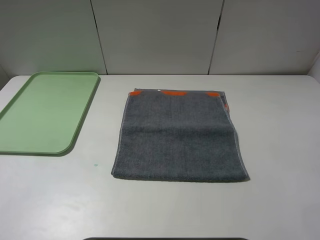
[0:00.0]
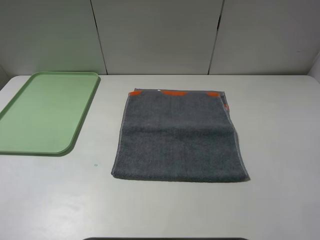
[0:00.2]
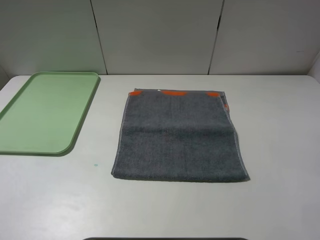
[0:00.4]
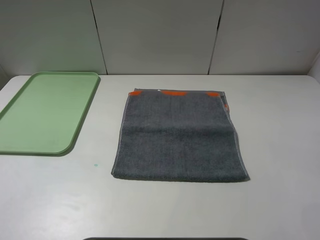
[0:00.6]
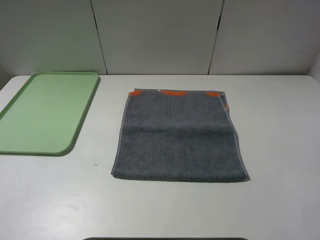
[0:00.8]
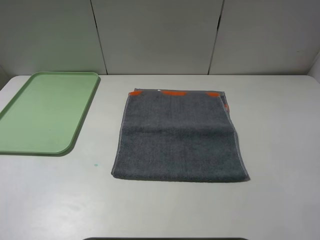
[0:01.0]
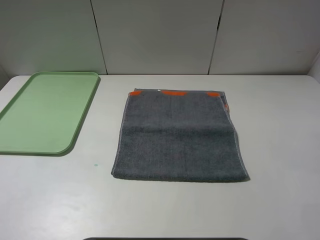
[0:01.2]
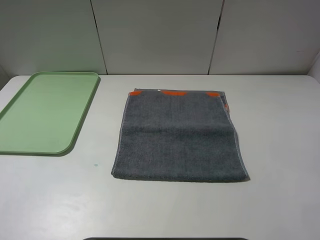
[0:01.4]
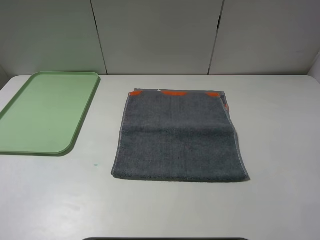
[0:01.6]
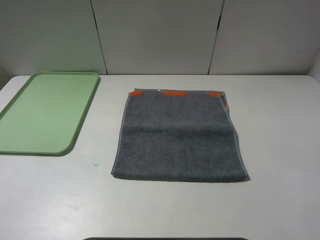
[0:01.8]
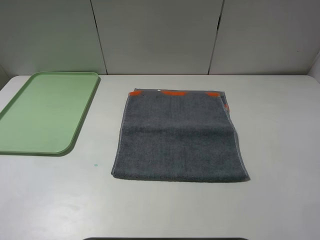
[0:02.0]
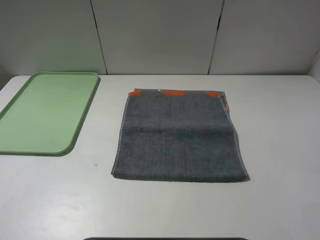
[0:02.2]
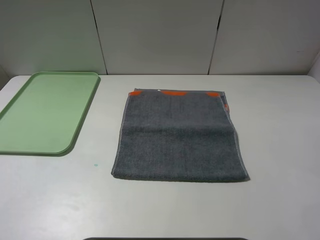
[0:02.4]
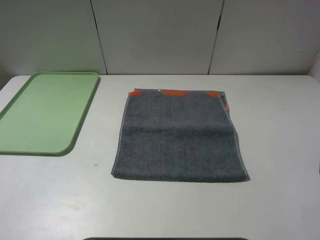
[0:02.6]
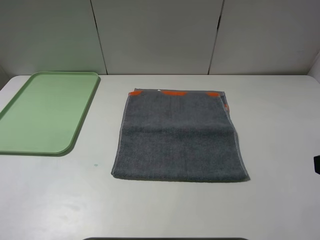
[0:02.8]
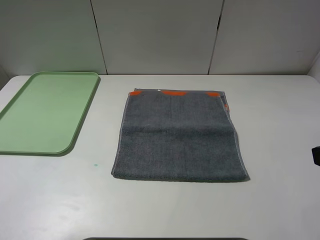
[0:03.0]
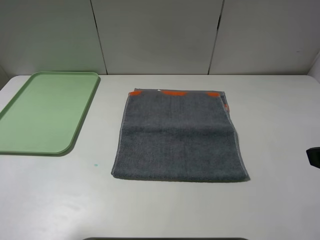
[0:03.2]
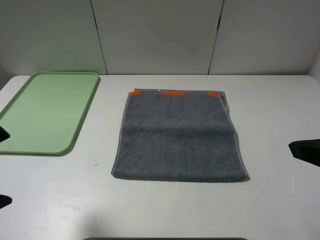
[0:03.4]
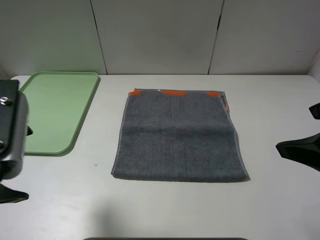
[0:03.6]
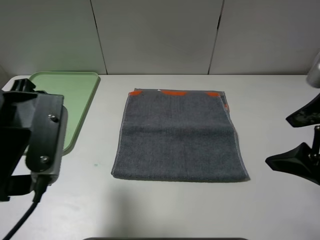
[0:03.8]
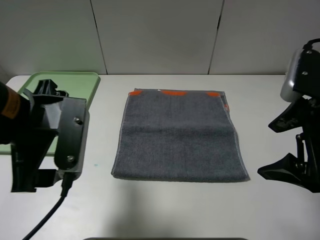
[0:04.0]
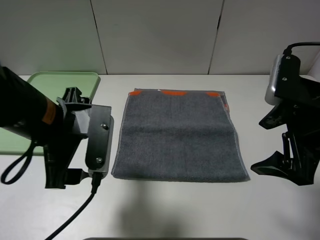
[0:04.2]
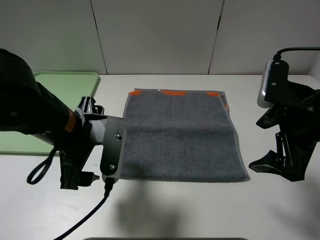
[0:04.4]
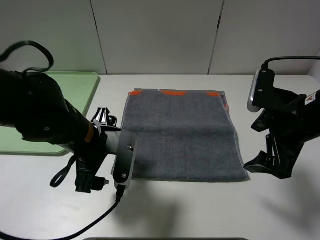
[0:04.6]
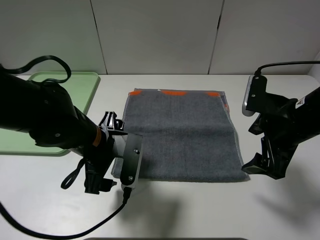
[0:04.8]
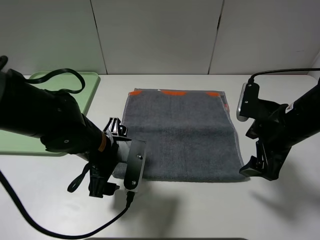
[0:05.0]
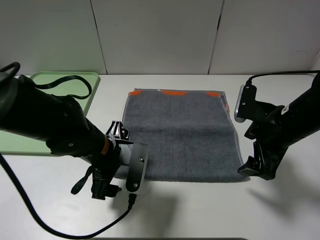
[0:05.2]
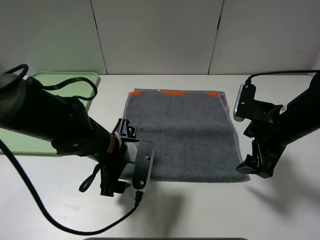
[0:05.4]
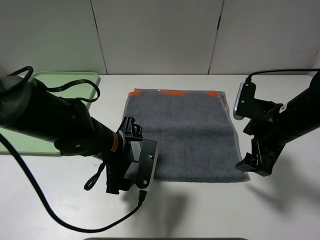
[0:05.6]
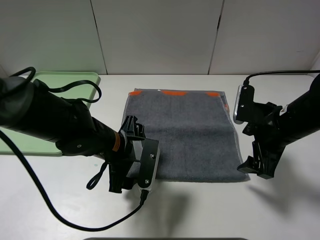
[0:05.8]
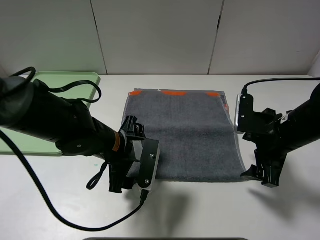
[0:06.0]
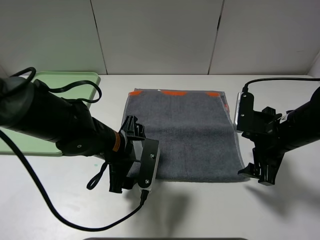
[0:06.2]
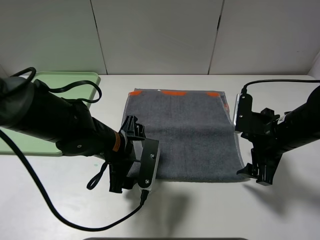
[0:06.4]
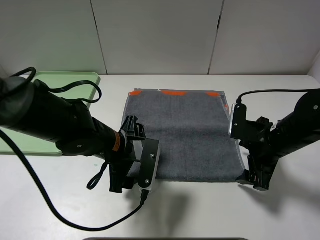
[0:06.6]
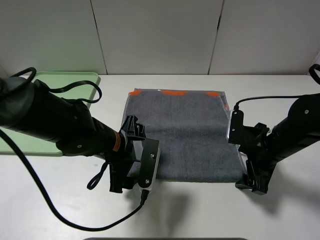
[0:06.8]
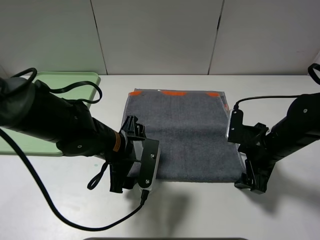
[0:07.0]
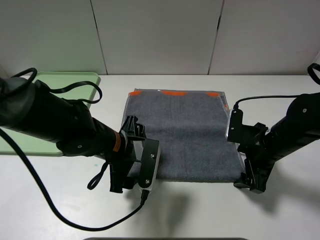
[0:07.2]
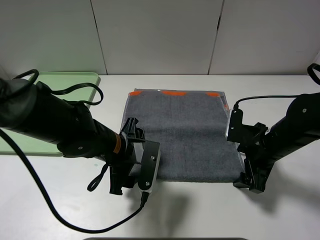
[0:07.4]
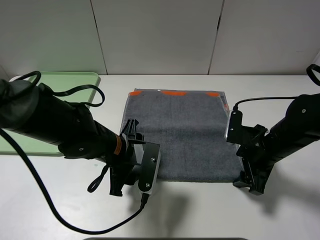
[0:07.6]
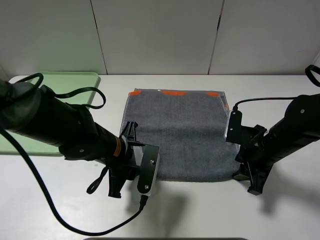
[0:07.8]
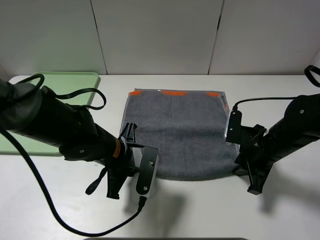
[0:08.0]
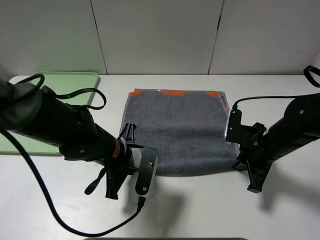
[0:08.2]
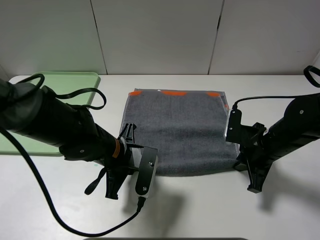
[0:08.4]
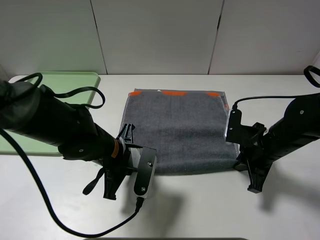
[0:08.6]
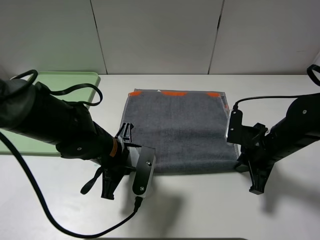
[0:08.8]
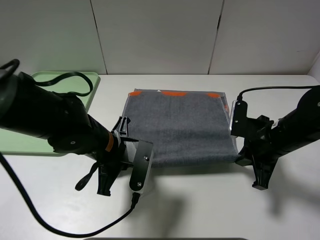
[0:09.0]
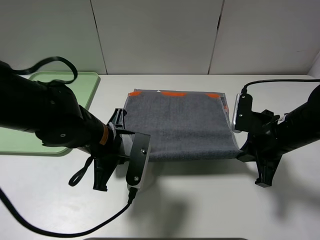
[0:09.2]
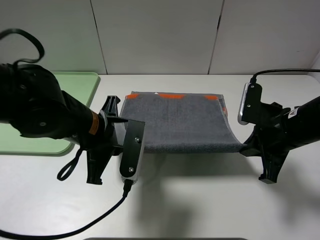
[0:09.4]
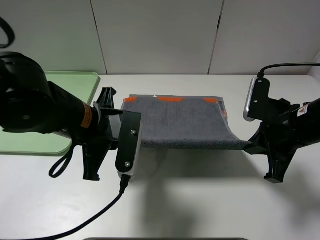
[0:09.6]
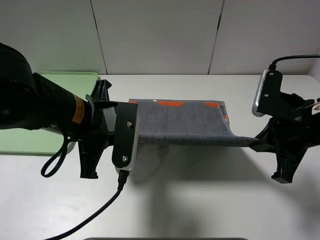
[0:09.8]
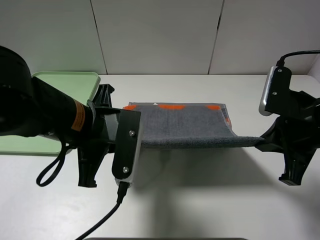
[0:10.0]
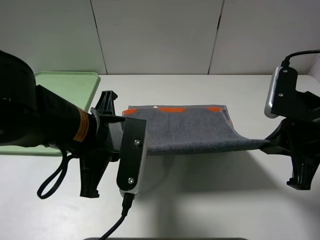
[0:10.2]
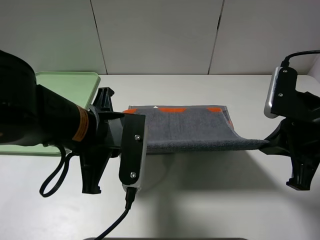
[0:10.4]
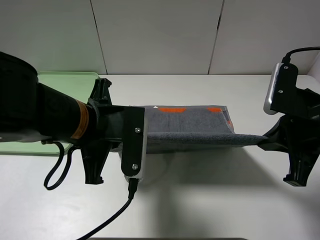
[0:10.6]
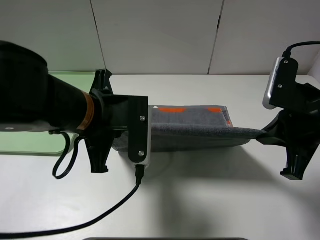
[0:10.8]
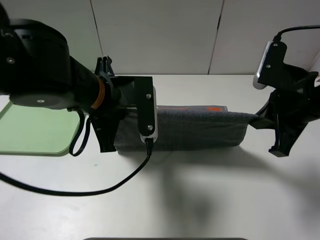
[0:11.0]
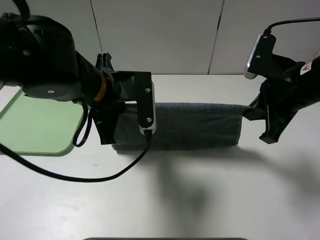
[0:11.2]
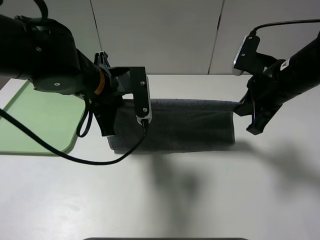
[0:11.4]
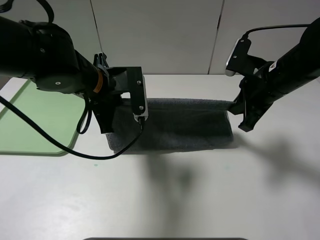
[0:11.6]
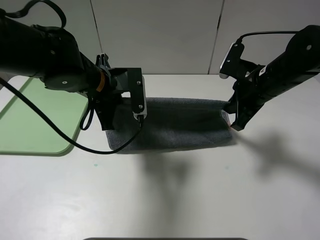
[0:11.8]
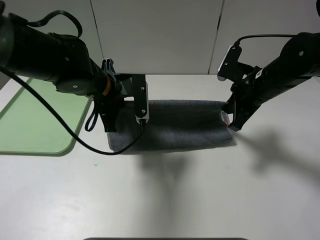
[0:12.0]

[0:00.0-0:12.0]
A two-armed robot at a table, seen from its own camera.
0:00.0 to 0:01.6: Both grippers stay put.
0:03.0 to 0:04.4: The left gripper is displaced to the right, downward and forward by about 25 cm; the right gripper is displaced forward and downward by some 15 cm.
0:04.4 to 0:06.0: Both grippers travel together downward, approximately 10 cm.
0:06.0 to 0:07.6: The right gripper goes about 5 cm downward.
0:07.6 to 0:09.0: The left gripper closes up. Meanwhile the right gripper closes.
0:09.0 to 0:10.4: The left gripper goes some 10 cm upward. Meanwhile the right gripper heads upward and backward, covering roughly 10 cm.
0:10.4 to 0:12.0: The two grippers go roughly 15 cm forward.

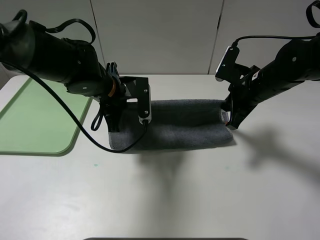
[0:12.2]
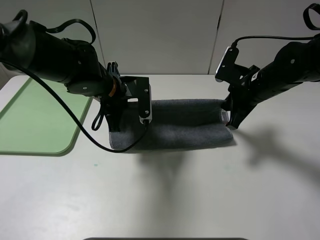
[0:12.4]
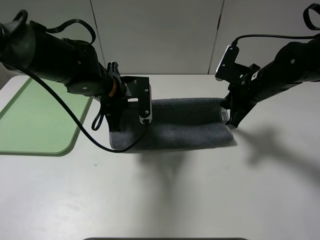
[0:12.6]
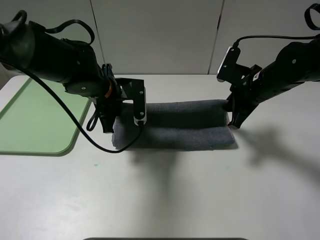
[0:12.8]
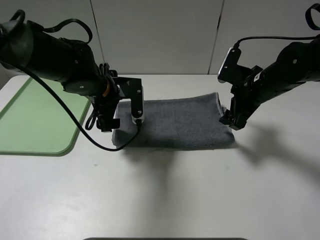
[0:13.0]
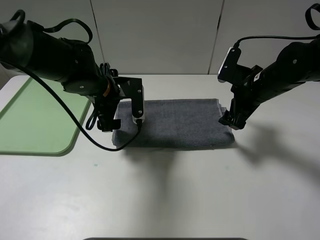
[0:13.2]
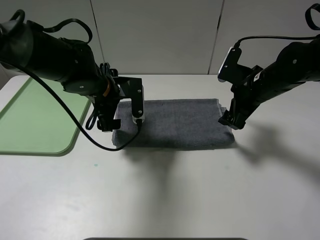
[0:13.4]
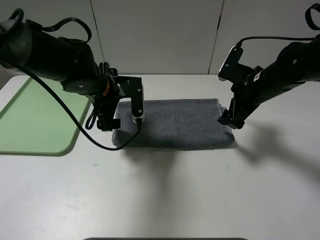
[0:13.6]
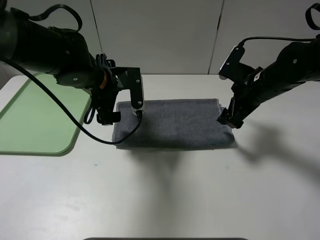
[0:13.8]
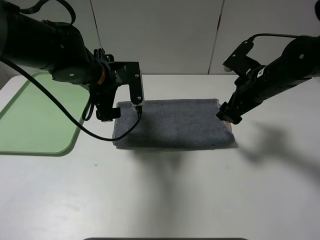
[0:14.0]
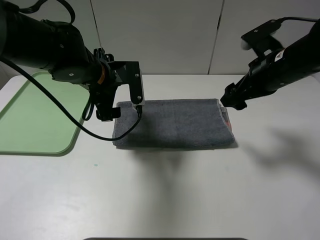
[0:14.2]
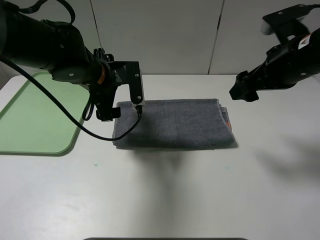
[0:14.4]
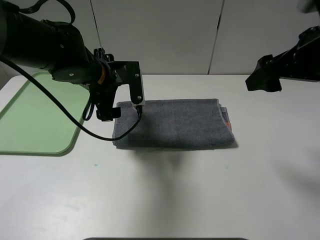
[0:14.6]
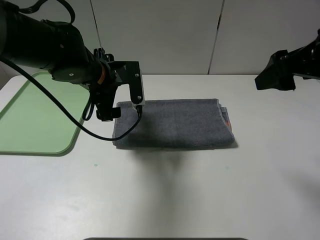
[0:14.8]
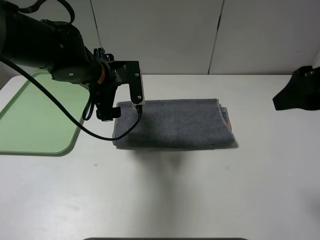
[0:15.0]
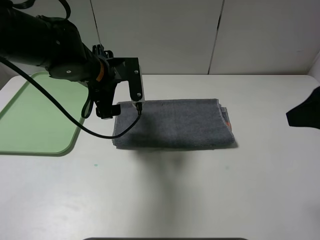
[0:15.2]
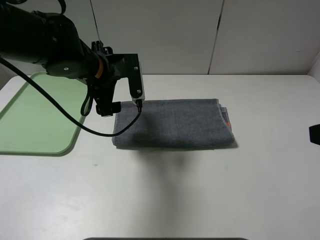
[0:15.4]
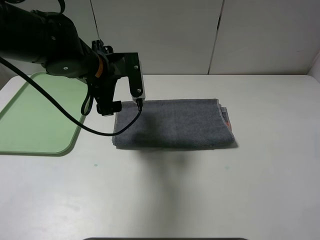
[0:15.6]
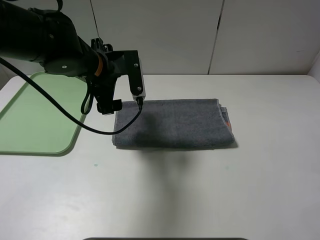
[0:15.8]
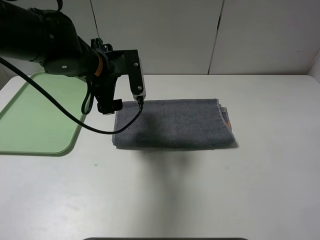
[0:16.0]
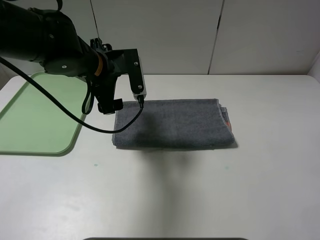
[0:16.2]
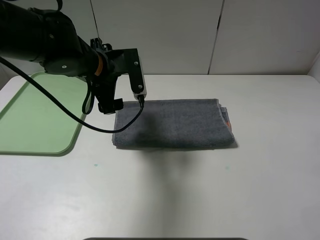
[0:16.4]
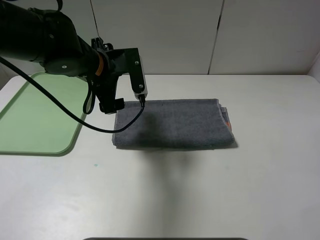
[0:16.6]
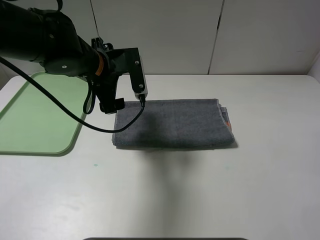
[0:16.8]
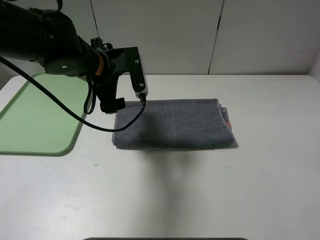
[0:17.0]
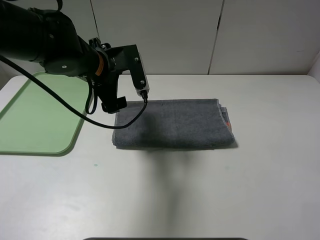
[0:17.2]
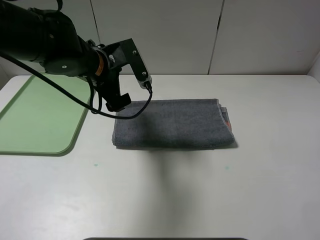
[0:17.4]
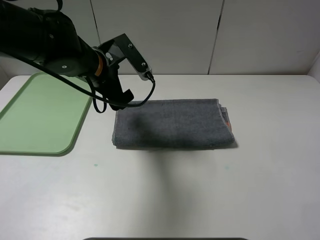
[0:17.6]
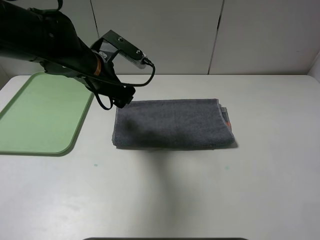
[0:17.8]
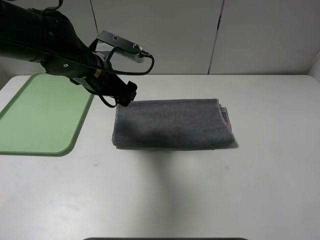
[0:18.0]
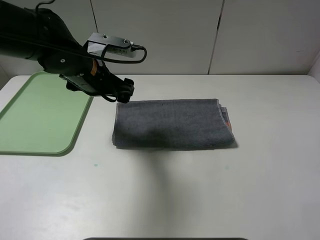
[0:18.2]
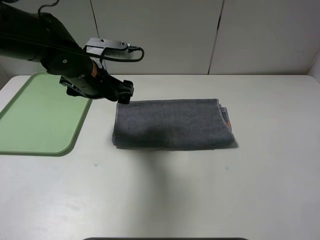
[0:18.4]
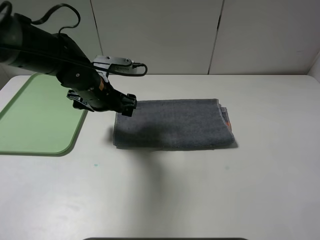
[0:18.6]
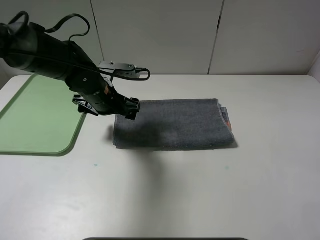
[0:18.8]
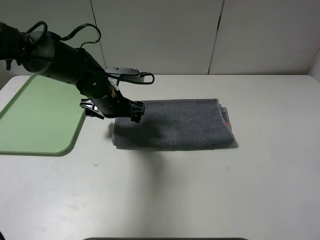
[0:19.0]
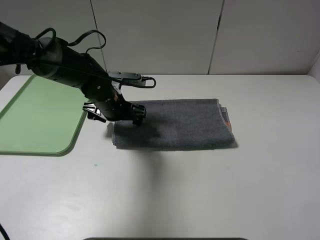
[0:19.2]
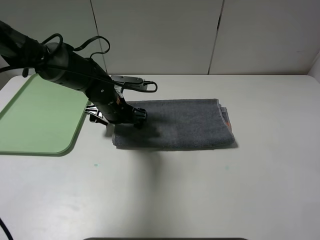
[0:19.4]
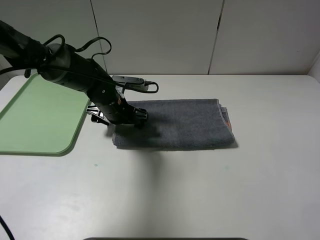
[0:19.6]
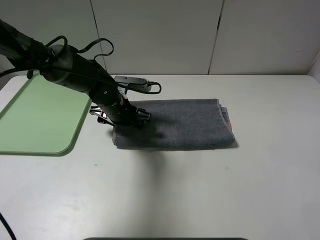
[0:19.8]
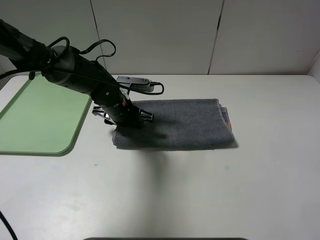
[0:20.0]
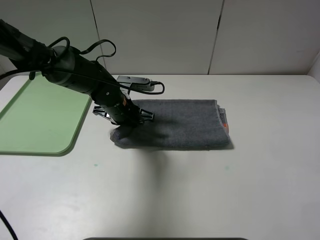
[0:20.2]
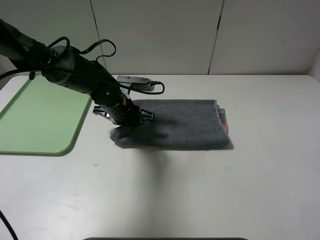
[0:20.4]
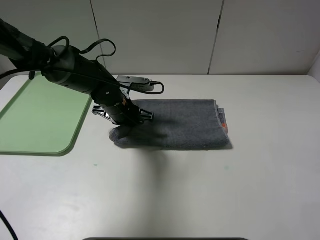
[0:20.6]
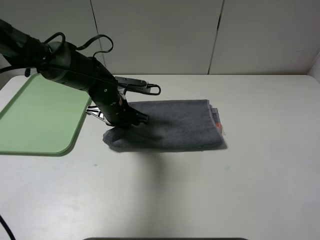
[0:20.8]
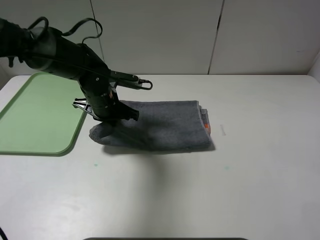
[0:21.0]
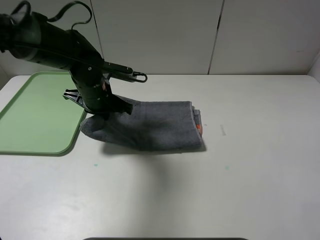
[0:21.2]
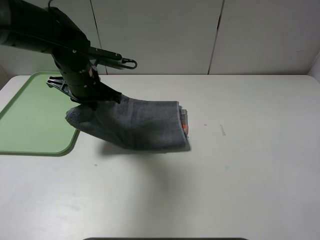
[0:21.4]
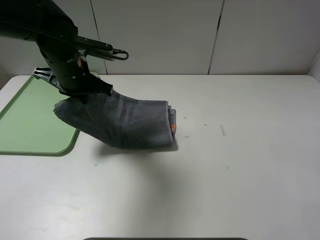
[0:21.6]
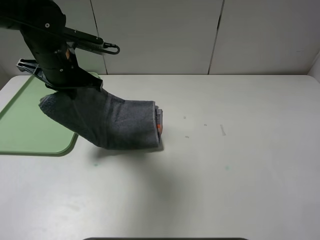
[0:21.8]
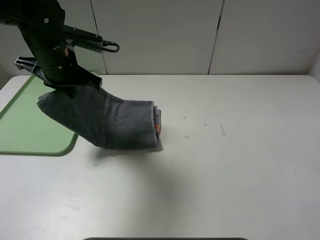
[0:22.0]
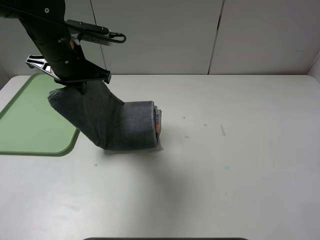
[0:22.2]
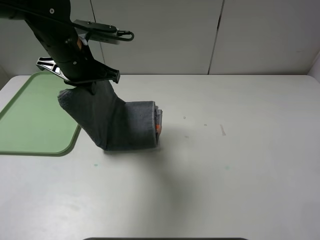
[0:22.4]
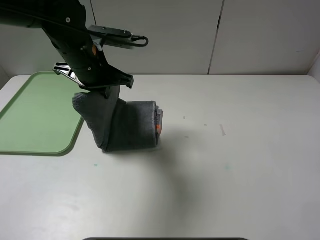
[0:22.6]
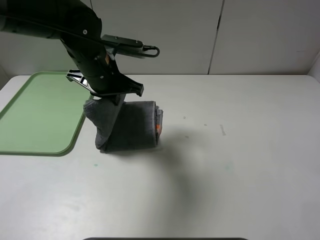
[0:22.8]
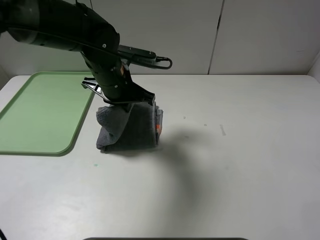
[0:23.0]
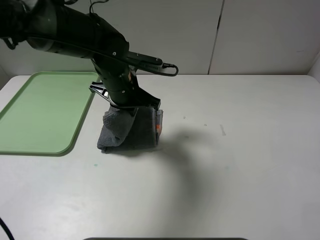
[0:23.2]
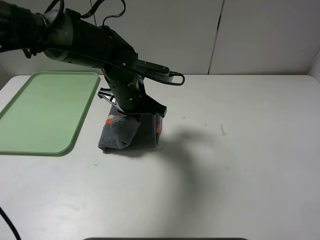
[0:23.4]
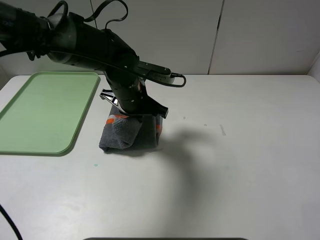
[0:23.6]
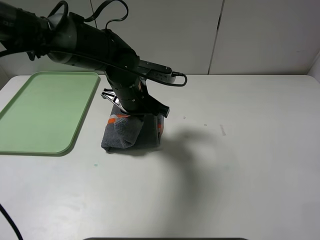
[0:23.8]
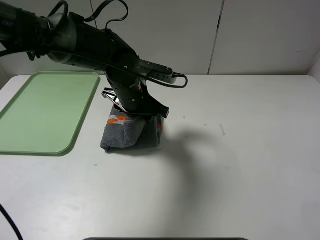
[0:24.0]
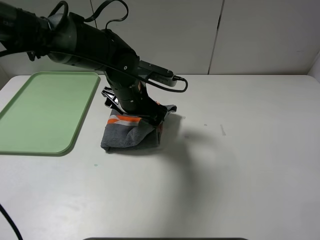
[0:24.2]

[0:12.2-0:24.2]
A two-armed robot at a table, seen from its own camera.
0:12.2 to 0:13.8: The right gripper opens its fingers. The left gripper opens.
0:13.8 to 0:15.2: The right gripper is displaced backward and upward by about 25 cm.
0:15.2 to 0:16.6: The right gripper heads backward, covering about 15 cm.
0:18.2 to 0:19.8: The left gripper travels downward by some 10 cm.
0:19.8 to 0:21.2: The left gripper moves upward, approximately 5 cm, and closes its fingers.
0:21.2 to 0:22.6: The left gripper moves upward, about 5 cm.
0:22.6 to 0:24.2: The left gripper travels downward and to the right by some 10 cm, and opens up.
